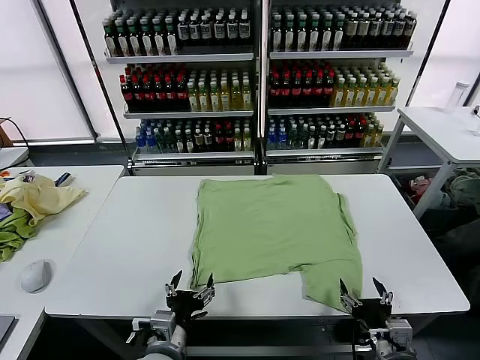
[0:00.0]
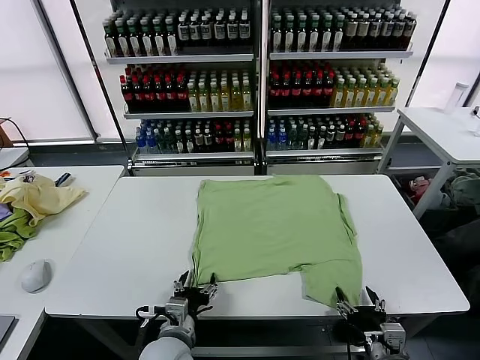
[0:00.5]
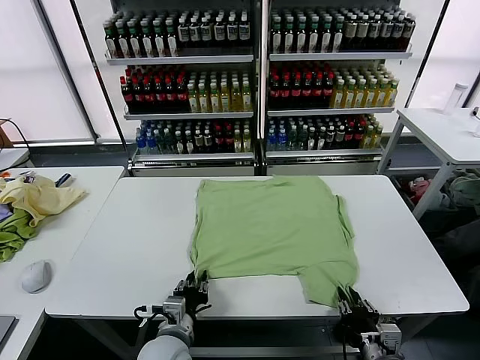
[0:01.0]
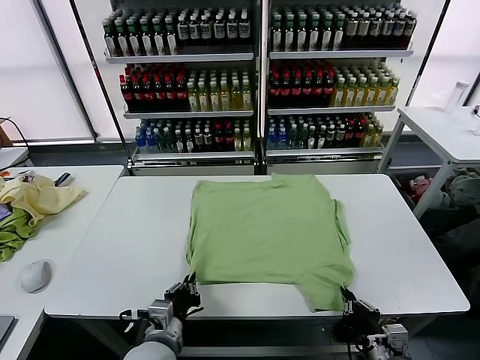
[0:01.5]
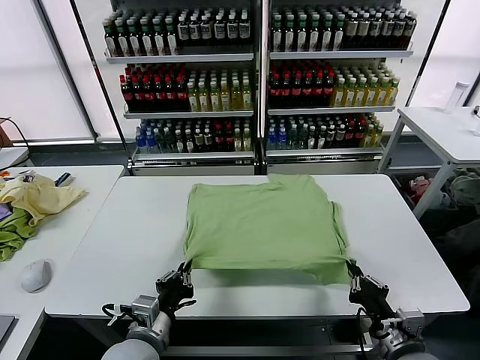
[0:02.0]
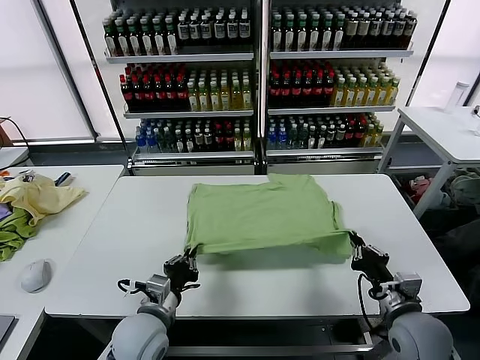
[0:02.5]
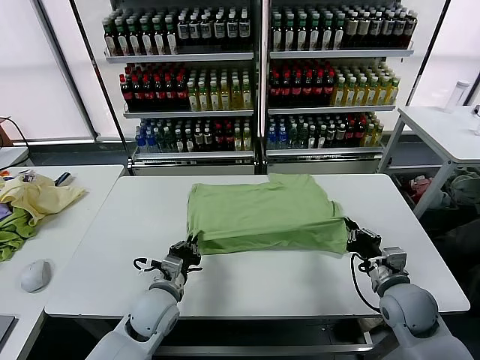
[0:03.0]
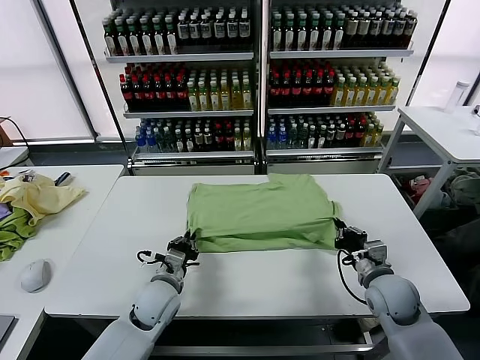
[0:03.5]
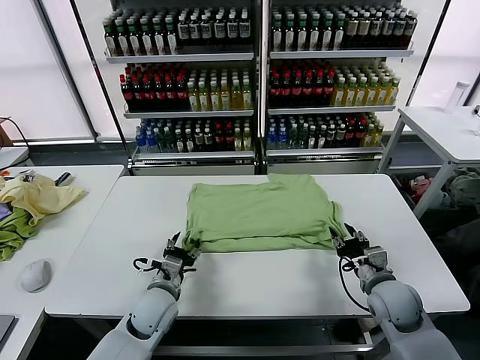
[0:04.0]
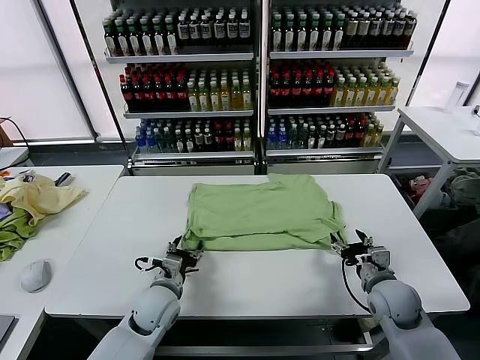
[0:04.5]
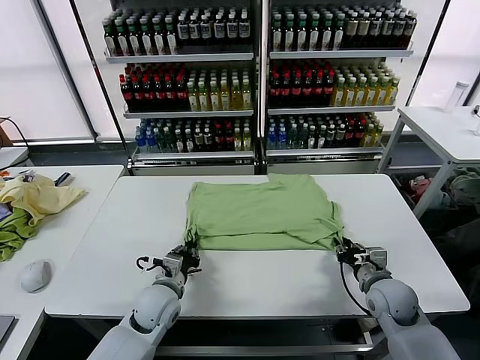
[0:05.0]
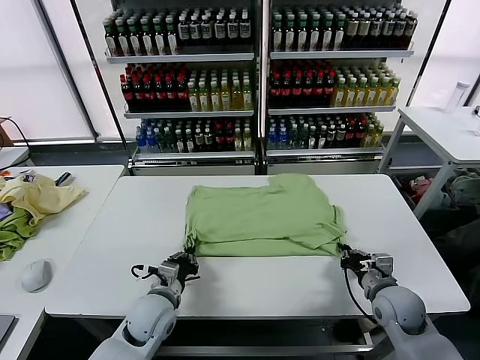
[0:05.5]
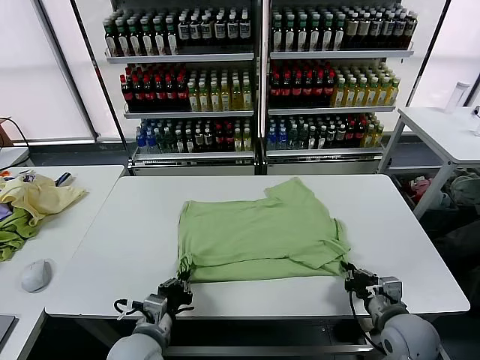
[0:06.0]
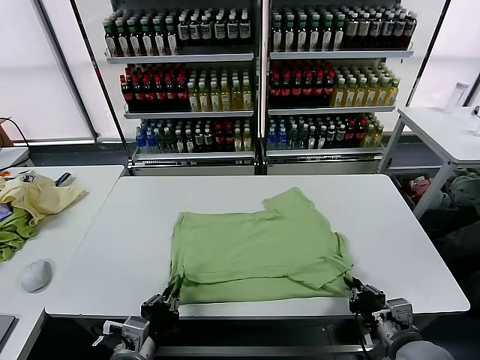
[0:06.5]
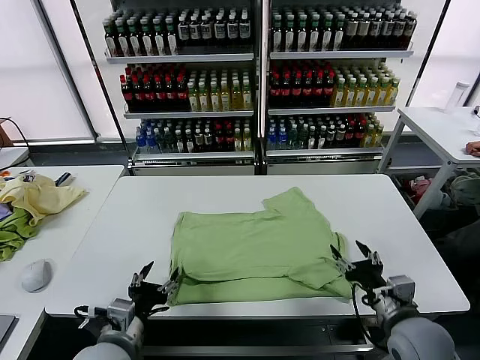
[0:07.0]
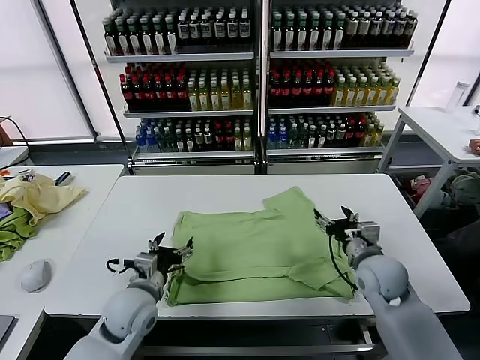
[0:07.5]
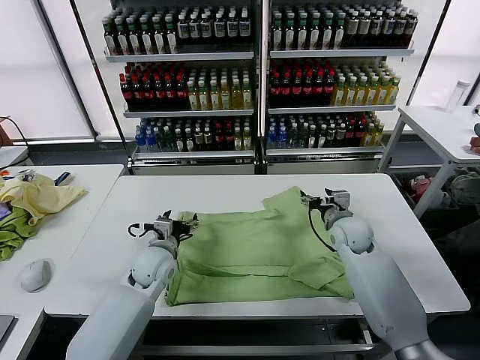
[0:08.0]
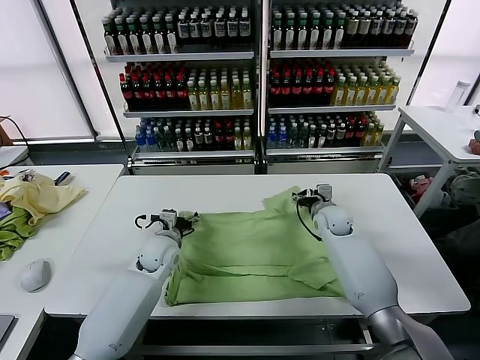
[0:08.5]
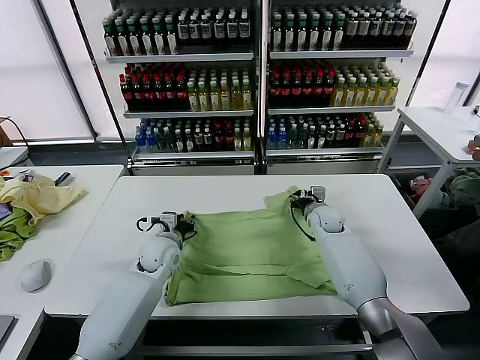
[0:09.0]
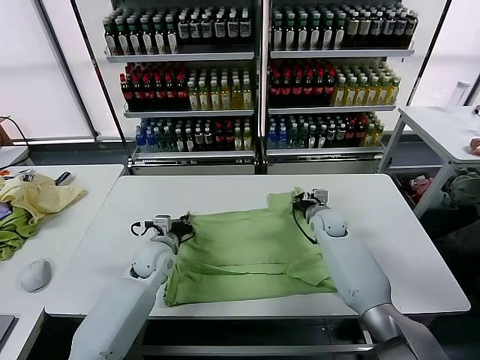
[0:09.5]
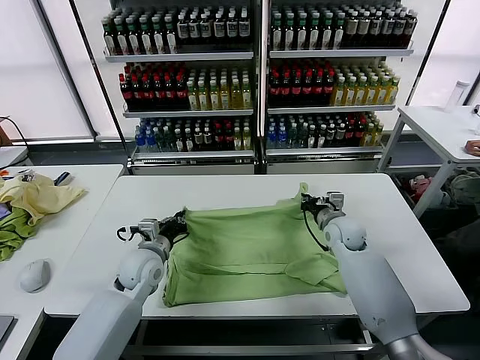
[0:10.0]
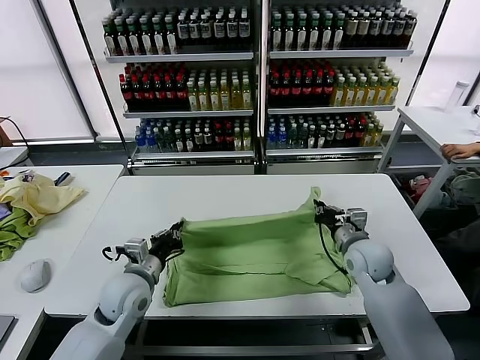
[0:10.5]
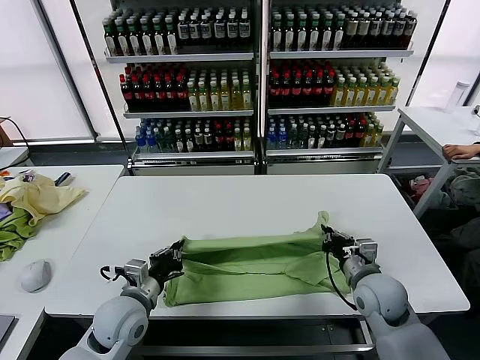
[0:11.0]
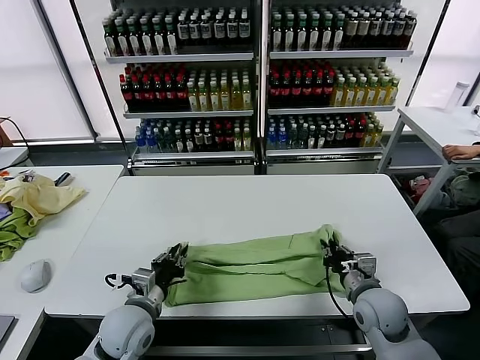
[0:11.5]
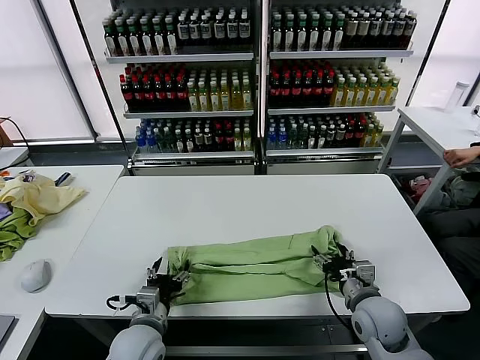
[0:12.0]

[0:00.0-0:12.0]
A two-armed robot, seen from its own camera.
Task of the whole recording: fold and organize the clothes.
Step, 0:00.0 to 0:01.0: use both grippers simultaneously to clamp the lower edge of the clothing fabric.
Step, 0:01.5 to 0:03.5: use both grippers to drag the lower edge of the fabric forward and fold it over the upper edge.
Step, 0:04.0 to 0:06.5: Drag the clothes downward with both gripper.
Step, 0:07.0 to 0:09.0: use both grippers simultaneously to clamp the upper edge of the clothing fabric.
Step, 0:09.5 to 0:11.5: use both grippers to drag the upper edge of the fabric backward and fold it over the lower edge.
0:02.0 to 0:04.0: The left gripper is displaced forward and downward by roughly 15 cm, and opens its fingers. The right gripper goes about 10 cm forward, and opens.
0:04.0 to 0:06.0: The grippers both shift backward by about 10 cm. The right gripper closes; the left gripper closes its fingers.
0:06.0 to 0:08.0: Both grippers move forward, approximately 25 cm. The left gripper opens up. The right gripper opens up.
0:08.0 to 0:10.0: The left gripper closes its fingers. The right gripper goes forward and returns, some 5 cm each way, and closes its fingers.
0:10.0 to 0:12.0: Both grippers travel together backward, approximately 15 cm. The left gripper opens up, while the right gripper opens.

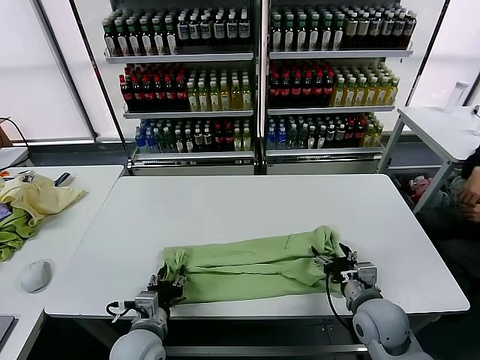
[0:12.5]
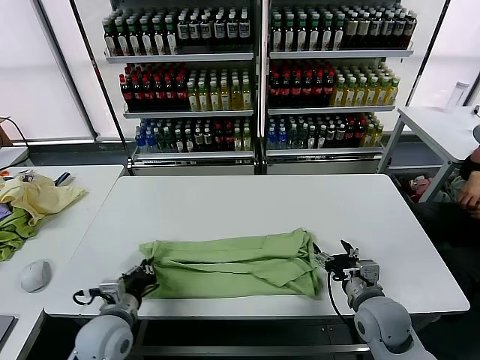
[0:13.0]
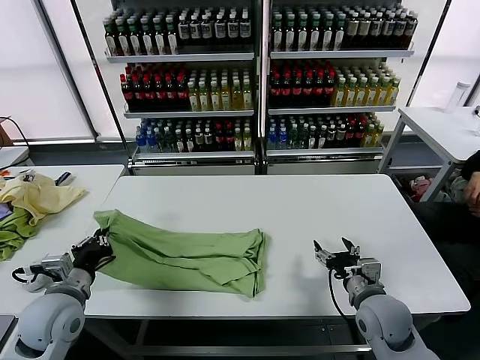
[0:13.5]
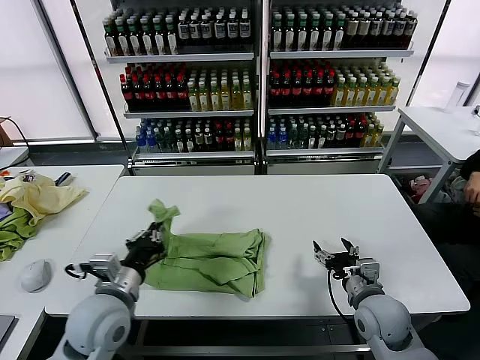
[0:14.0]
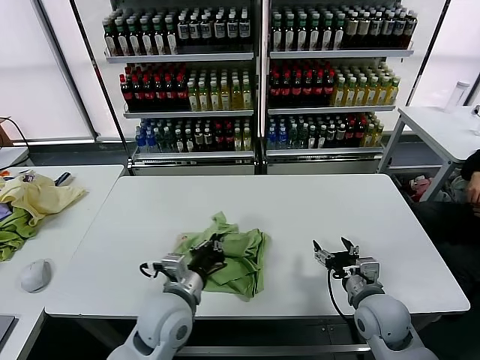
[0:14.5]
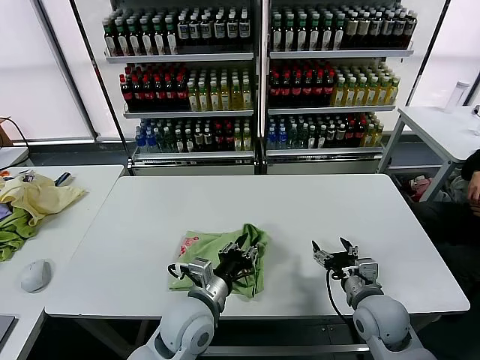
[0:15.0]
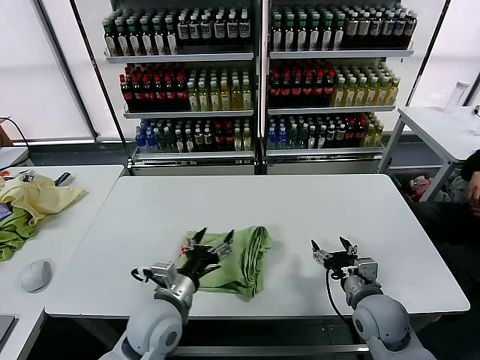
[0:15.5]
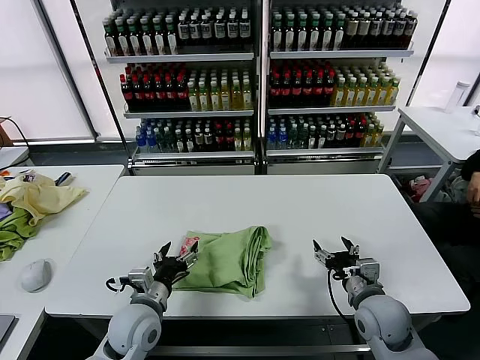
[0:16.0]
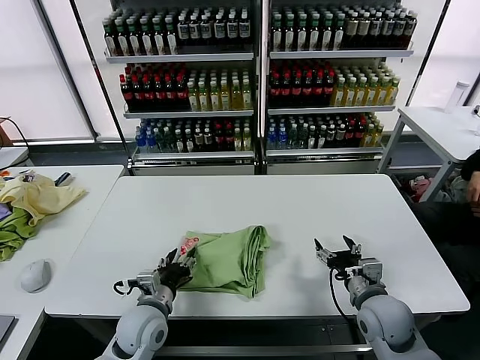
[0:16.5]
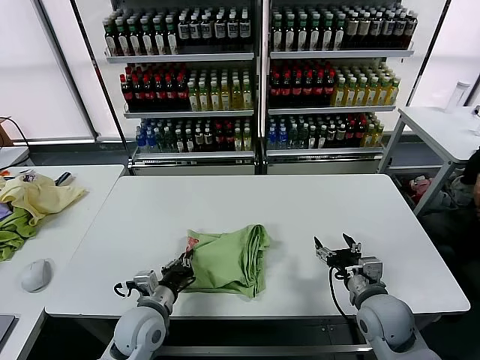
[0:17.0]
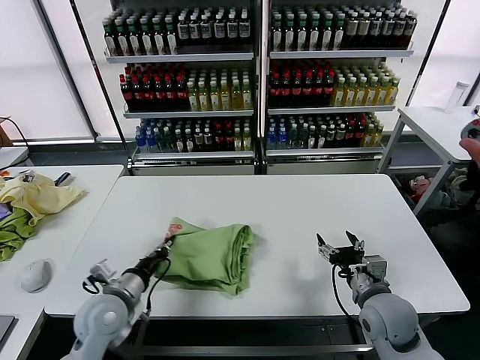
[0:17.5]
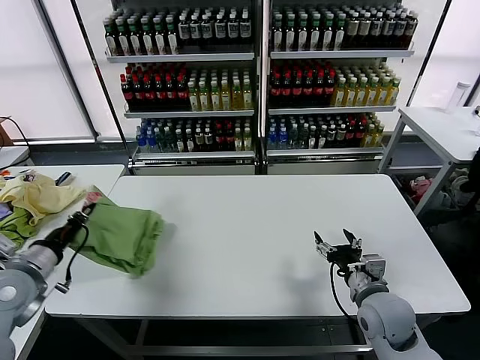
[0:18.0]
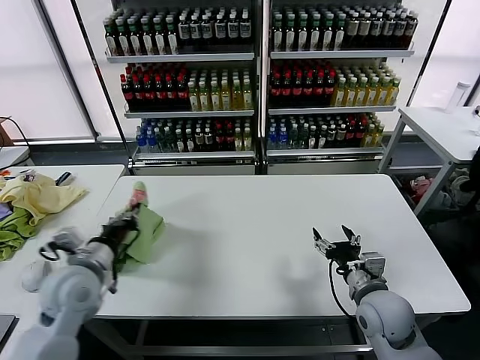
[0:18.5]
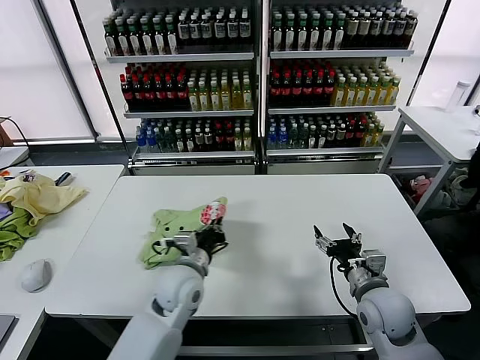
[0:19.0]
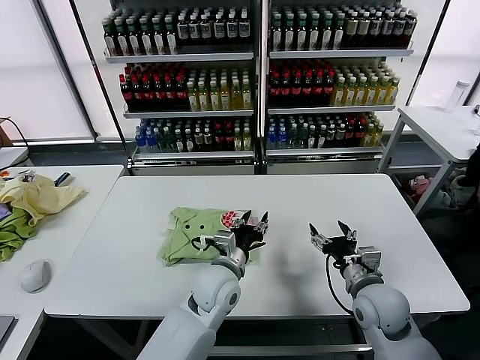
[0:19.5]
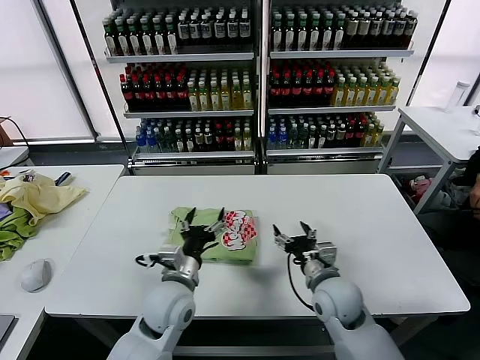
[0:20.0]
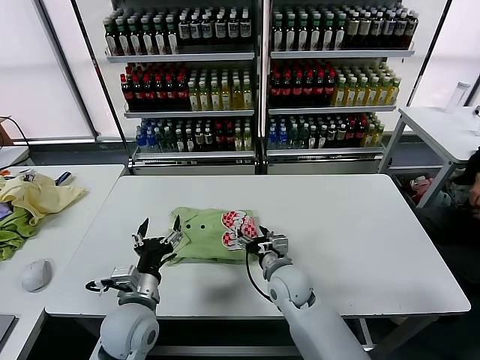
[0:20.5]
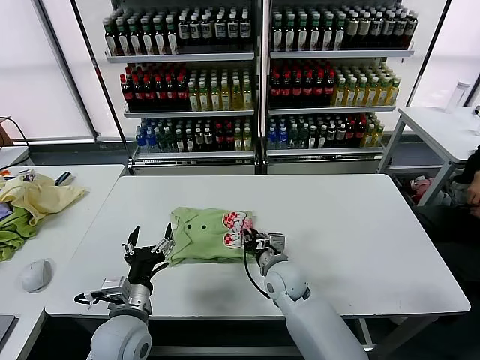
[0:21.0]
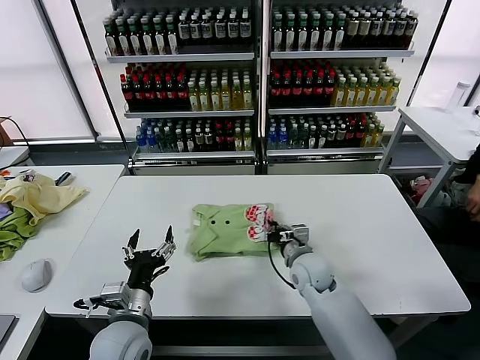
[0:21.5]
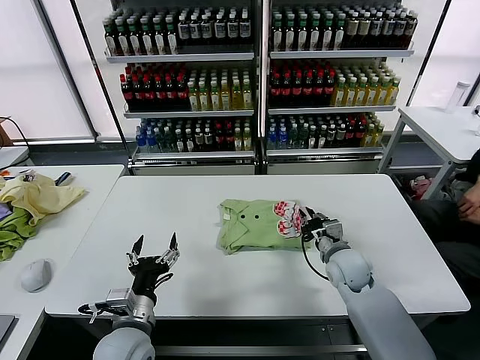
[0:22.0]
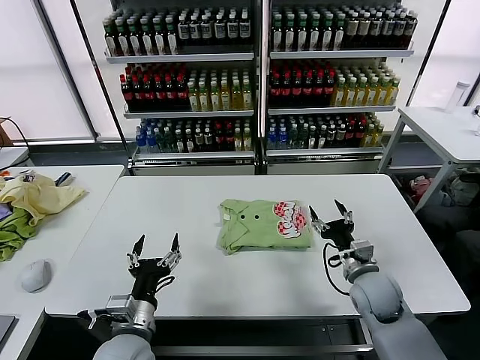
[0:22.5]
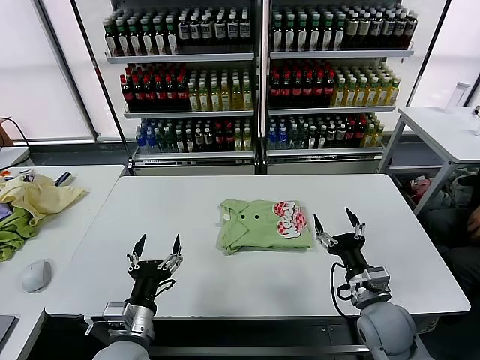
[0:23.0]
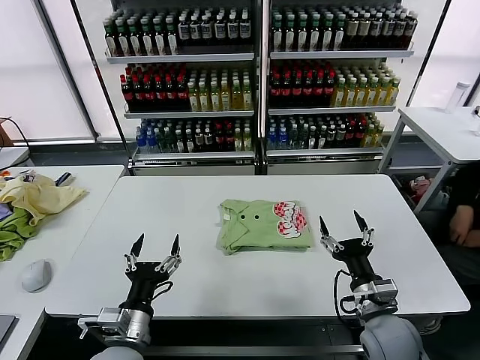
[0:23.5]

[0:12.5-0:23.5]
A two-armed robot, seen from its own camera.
Task of the whole recording: fold and organize the clothes.
Step, 0:13.5 to 0:15.0: use the left gripper to drag the left edge of the fabric to the left and folds it over the right edge.
Step, 0:15.5 to 0:19.0: Flip the folded clothes over with left gripper.
Step, 0:20.0 to 0:22.0: Drag the clothes to the center of the table.
0:12.5 to 0:14.5: The left gripper shifts about 10 cm upward, goes to the left and returns, roughly 15 cm each way, and closes up.
0:14.5 to 0:16.0: The left gripper travels to the left and downward by roughly 10 cm, and opens its fingers.
0:16.0 to 0:18.0: The left gripper shifts roughly 25 cm to the left and upward, and closes up.
0:18.0 to 0:20.0: The right gripper is displaced to the left by some 10 cm; the left gripper travels to the right by some 30 cm, and opens its fingers.
0:20.0 to 0:21.5: The right gripper shifts about 10 cm forward, and closes its fingers, while the left gripper moves to the left and backward, about 10 cm.
0:21.5 to 0:23.5: The right gripper shifts roughly 20 cm backward and to the right, and opens its fingers.
